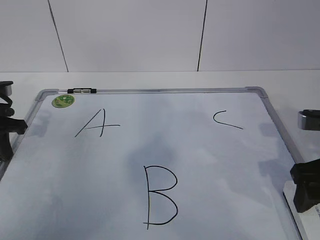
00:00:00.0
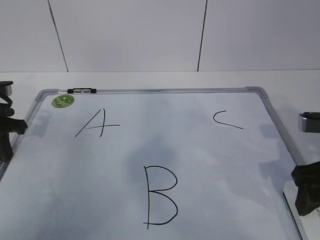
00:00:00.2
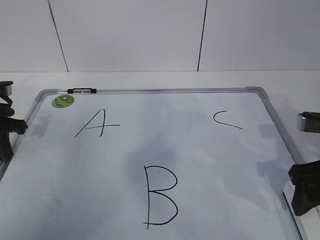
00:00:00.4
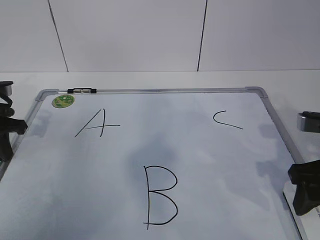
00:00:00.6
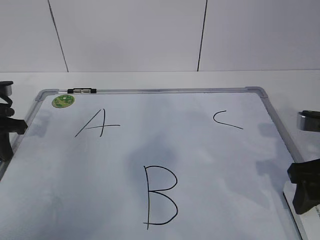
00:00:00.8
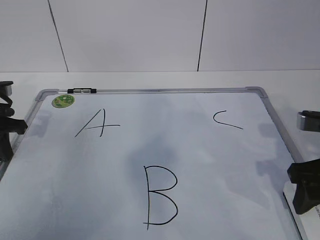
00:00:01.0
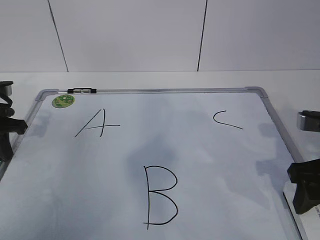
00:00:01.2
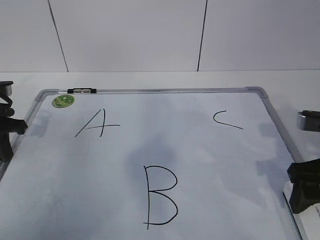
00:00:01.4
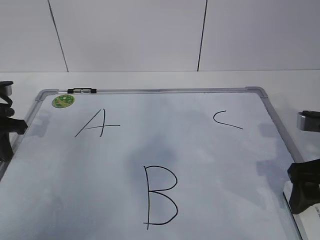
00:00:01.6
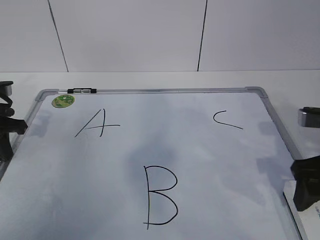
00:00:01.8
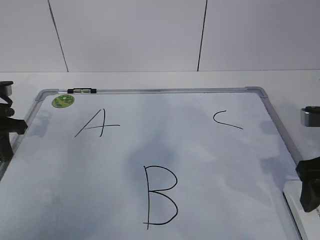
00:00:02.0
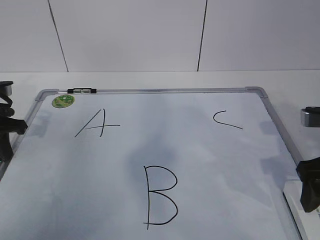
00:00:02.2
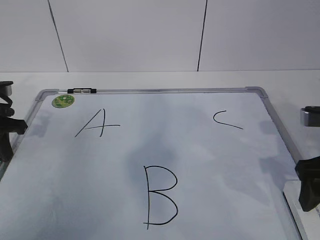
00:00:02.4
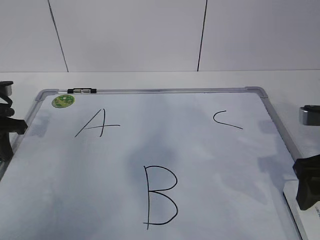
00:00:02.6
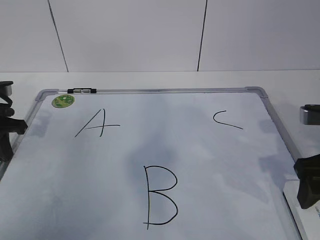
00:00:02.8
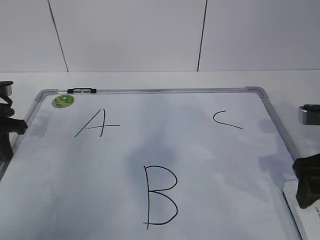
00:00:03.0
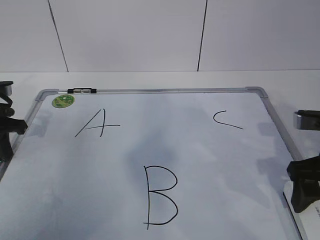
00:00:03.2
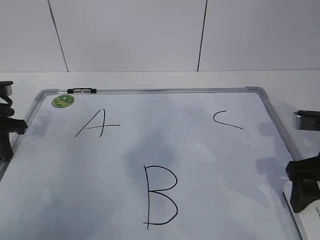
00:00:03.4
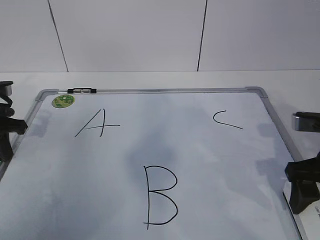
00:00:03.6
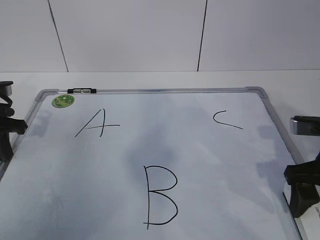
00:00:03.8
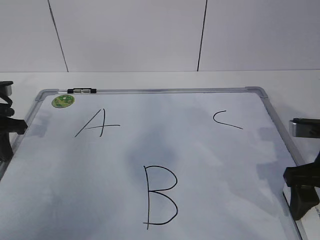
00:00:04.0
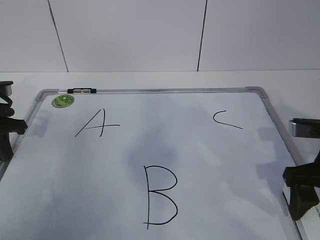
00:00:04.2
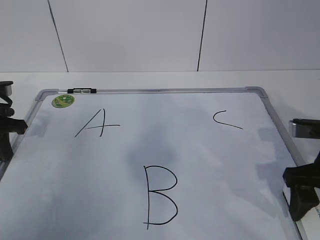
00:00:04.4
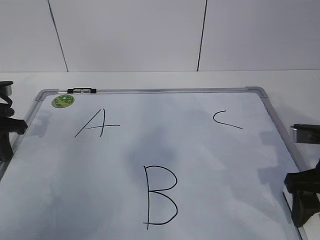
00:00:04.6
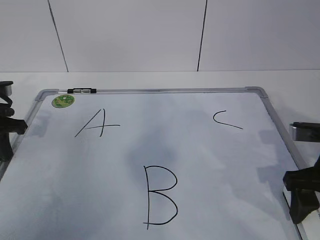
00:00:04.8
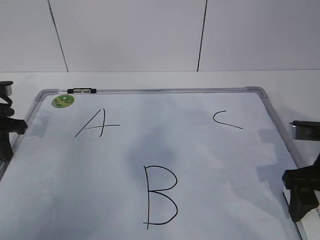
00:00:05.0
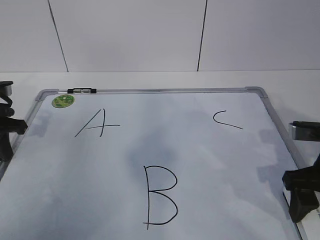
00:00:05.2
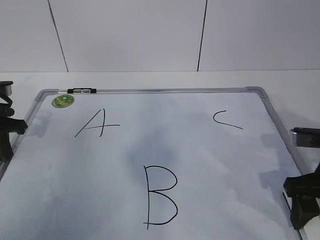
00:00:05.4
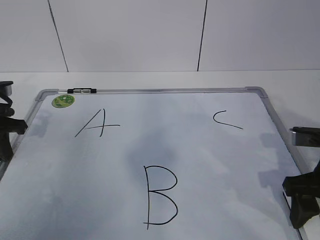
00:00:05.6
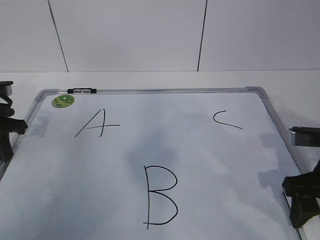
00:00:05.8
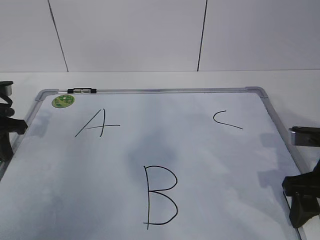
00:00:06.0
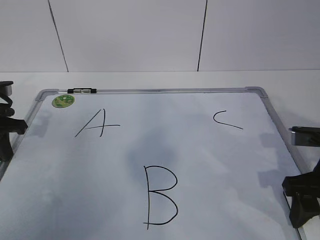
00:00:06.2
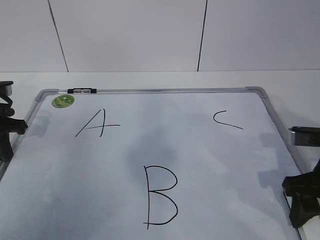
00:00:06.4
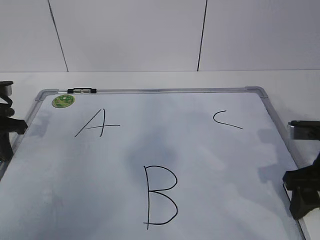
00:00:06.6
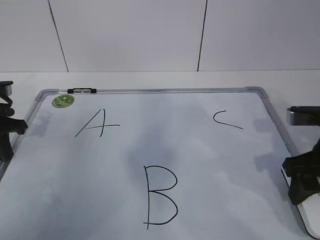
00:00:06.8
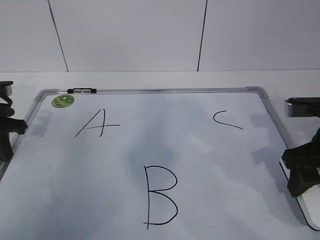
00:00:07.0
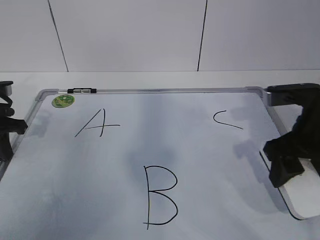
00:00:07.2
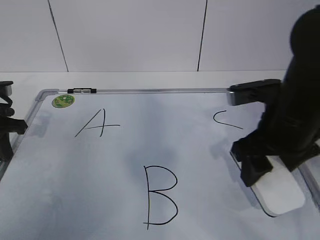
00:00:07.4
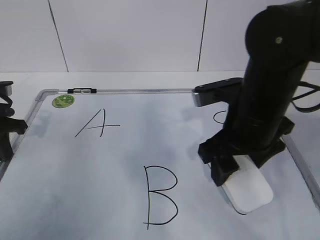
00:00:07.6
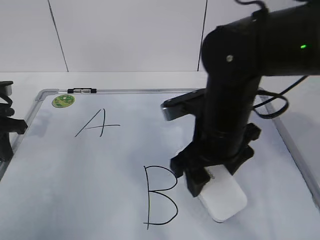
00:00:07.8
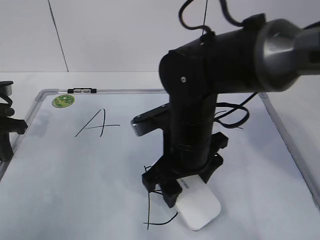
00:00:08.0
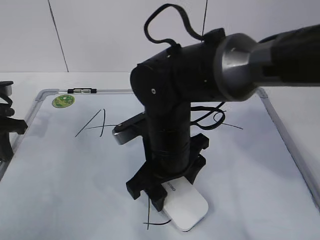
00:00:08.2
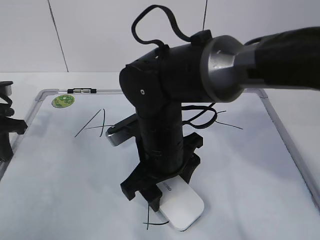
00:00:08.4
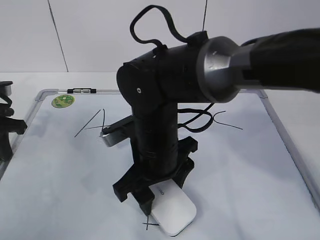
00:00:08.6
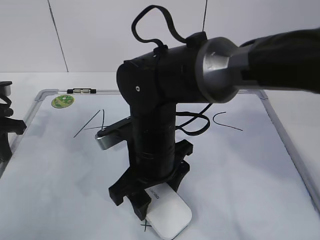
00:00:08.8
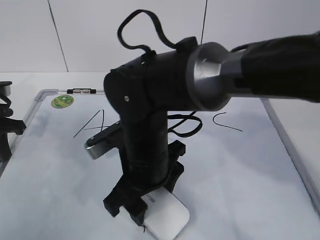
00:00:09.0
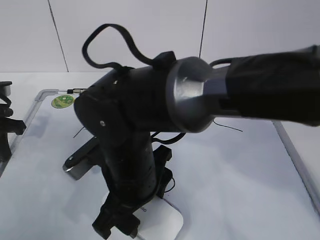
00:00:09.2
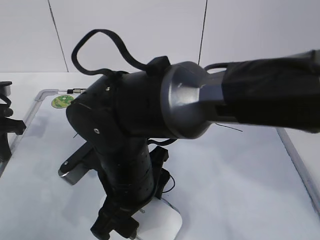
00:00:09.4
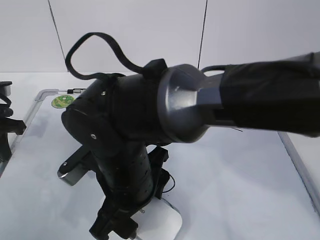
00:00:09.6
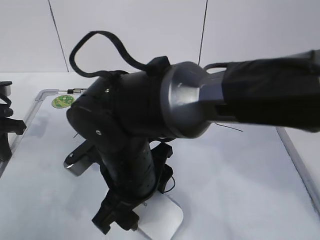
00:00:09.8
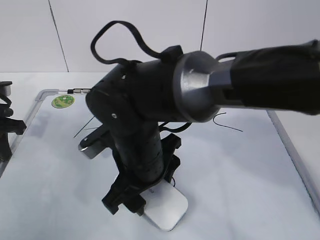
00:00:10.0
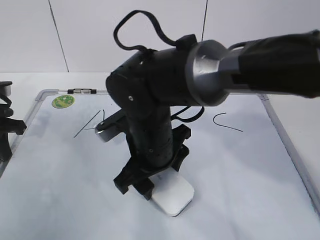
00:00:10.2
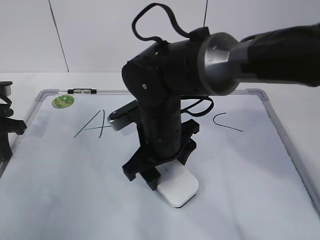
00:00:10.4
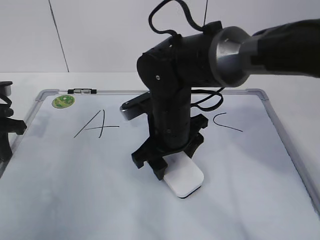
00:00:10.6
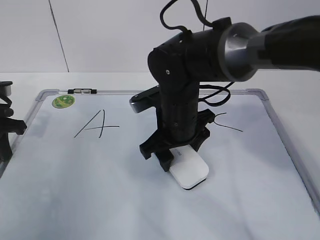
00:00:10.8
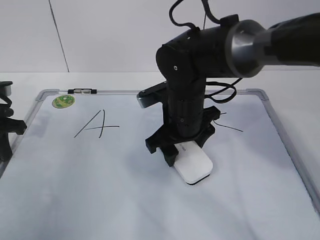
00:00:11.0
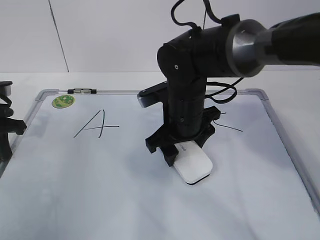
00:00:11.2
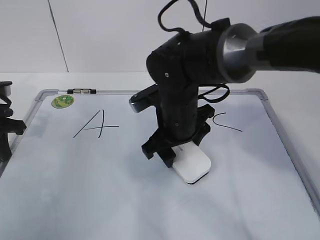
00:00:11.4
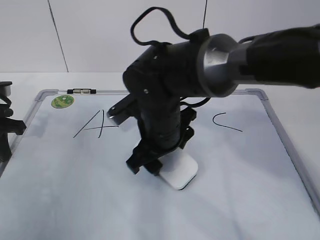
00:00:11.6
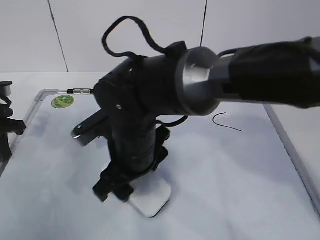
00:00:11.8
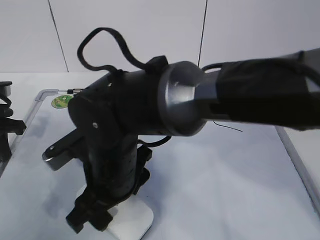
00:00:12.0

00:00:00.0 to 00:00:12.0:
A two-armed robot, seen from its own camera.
Task of the whole recording: pick up the eraser on the blackboard and erase the letter "B".
Step, 00:00:00.0 to 00:00:03.6: Grab the eraser with your right hand.
Step, 00:00:03.8 to 00:00:10.0: Erase the letter B with your right hand.
00:00:01.6 to 00:00:04.4: The grippers make only small movements.
00:00:04.4 to 00:00:06.0: The right gripper closes its fingers.
00:00:06.0 to 00:00:07.6: The right gripper is displaced to the left by some 15 cm.
00:00:07.6 to 00:00:09.0: The right gripper travels to the left and downward by approximately 15 cm.
00:00:09.0 to 00:00:10.4: The right gripper goes some 5 cm forward.
00:00:10.4 to 00:00:12.0: The right gripper moves to the left and backward, some 10 cm.

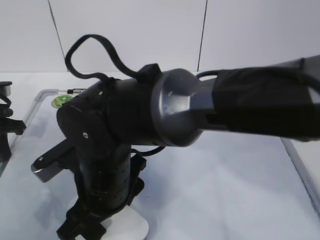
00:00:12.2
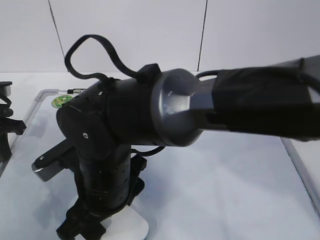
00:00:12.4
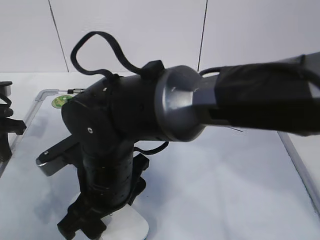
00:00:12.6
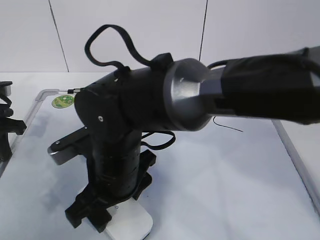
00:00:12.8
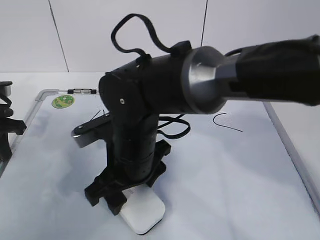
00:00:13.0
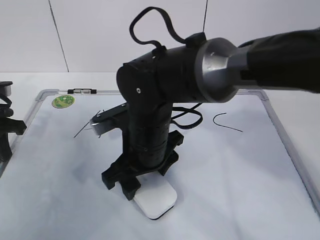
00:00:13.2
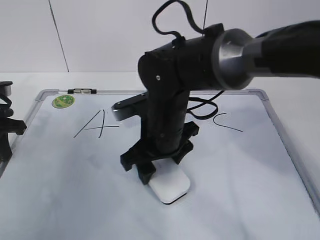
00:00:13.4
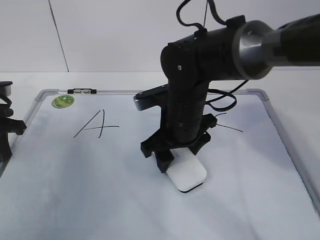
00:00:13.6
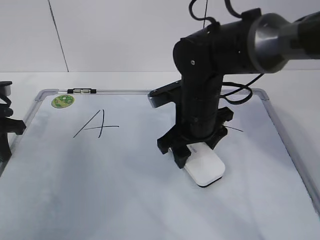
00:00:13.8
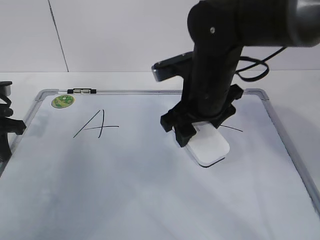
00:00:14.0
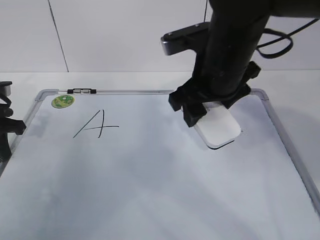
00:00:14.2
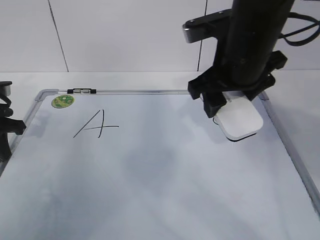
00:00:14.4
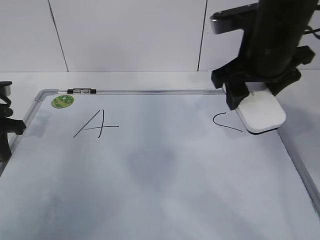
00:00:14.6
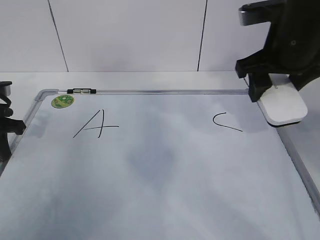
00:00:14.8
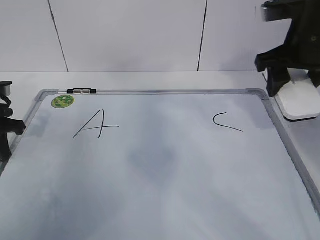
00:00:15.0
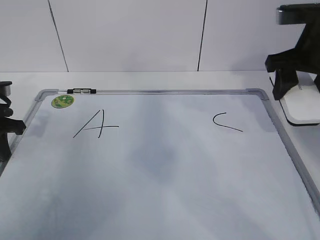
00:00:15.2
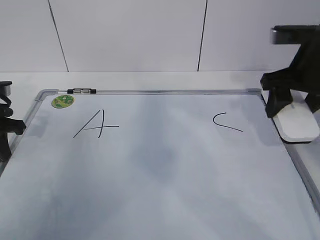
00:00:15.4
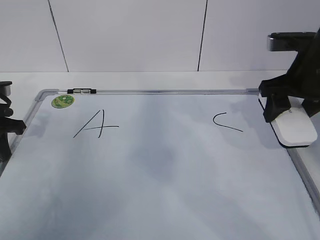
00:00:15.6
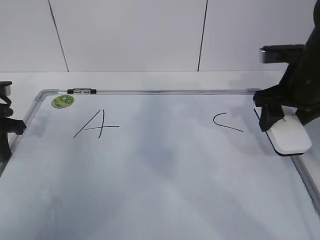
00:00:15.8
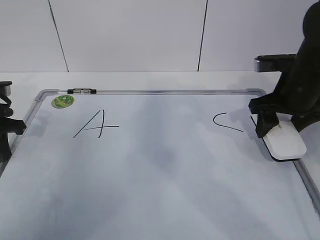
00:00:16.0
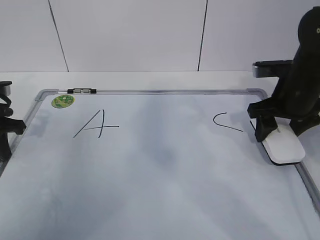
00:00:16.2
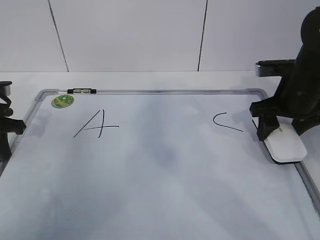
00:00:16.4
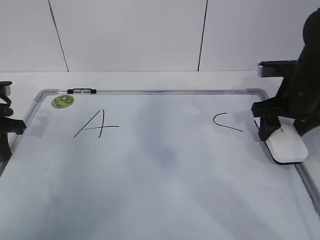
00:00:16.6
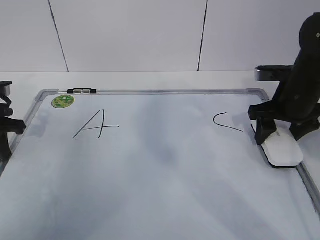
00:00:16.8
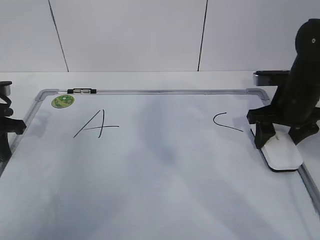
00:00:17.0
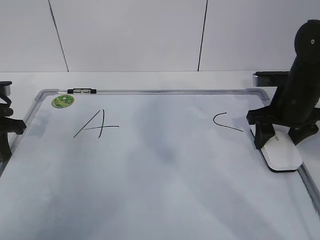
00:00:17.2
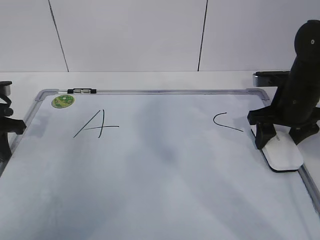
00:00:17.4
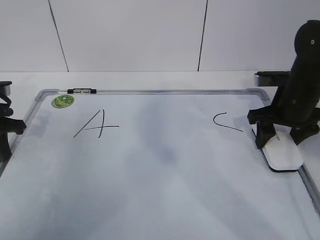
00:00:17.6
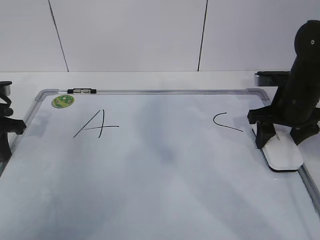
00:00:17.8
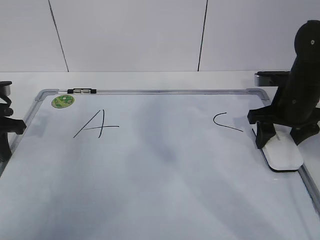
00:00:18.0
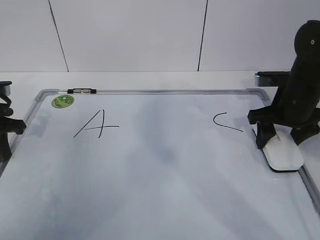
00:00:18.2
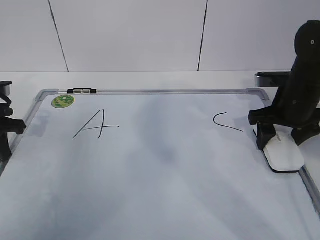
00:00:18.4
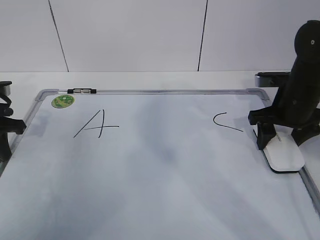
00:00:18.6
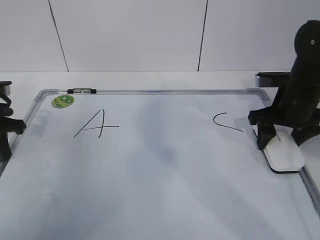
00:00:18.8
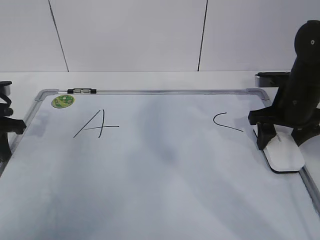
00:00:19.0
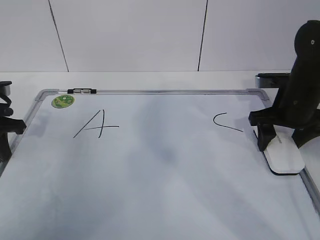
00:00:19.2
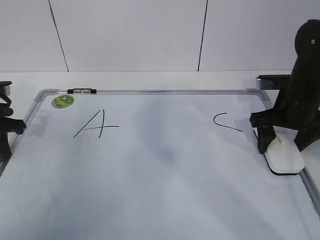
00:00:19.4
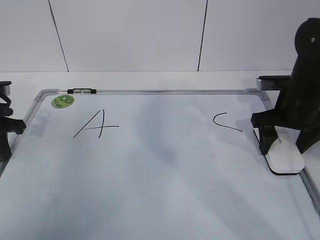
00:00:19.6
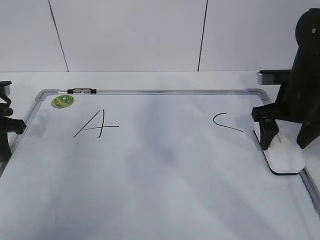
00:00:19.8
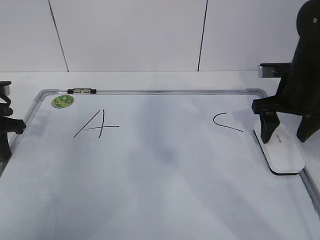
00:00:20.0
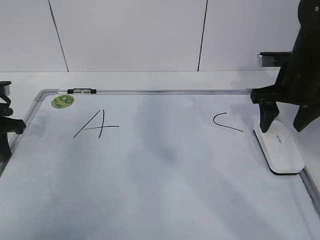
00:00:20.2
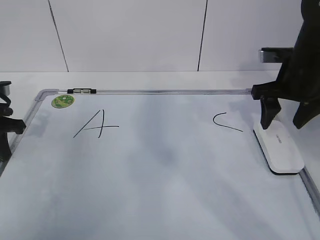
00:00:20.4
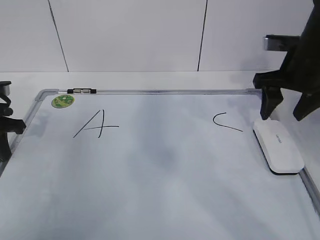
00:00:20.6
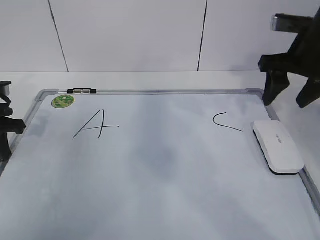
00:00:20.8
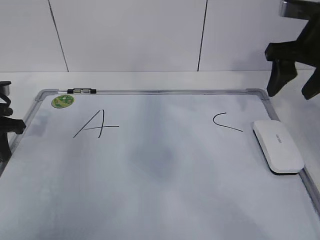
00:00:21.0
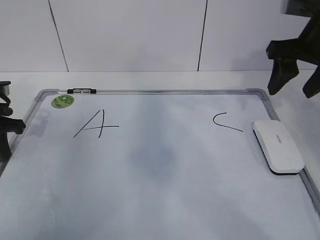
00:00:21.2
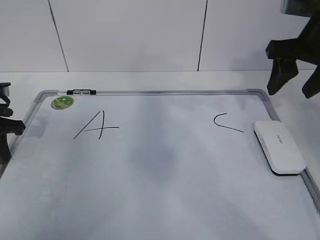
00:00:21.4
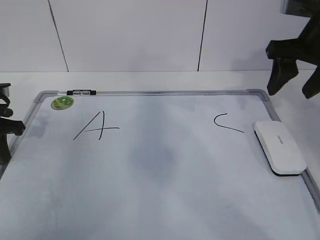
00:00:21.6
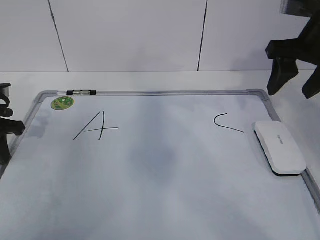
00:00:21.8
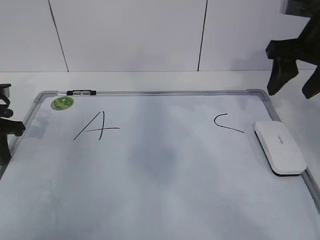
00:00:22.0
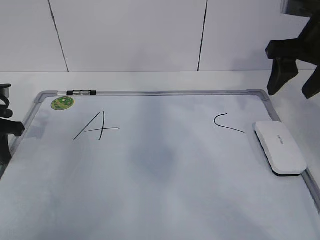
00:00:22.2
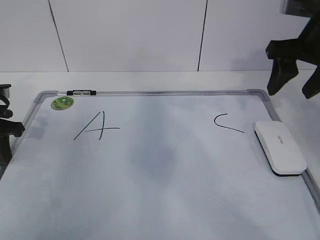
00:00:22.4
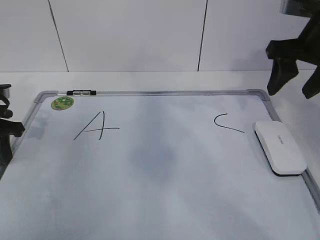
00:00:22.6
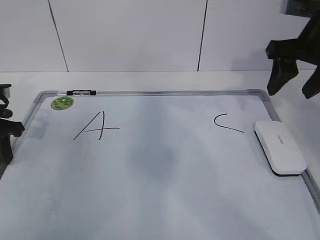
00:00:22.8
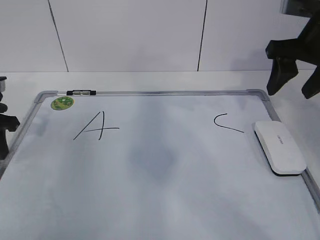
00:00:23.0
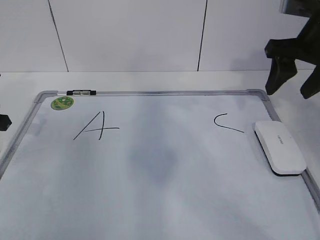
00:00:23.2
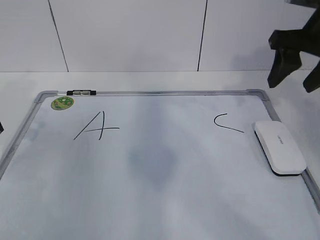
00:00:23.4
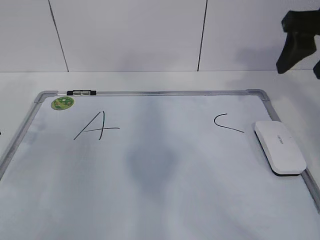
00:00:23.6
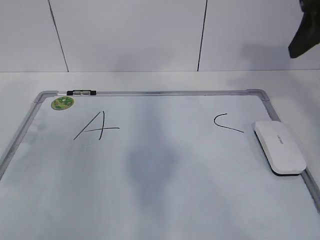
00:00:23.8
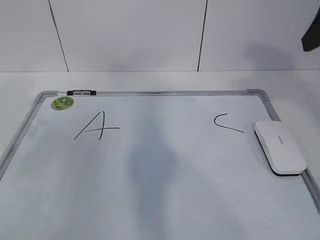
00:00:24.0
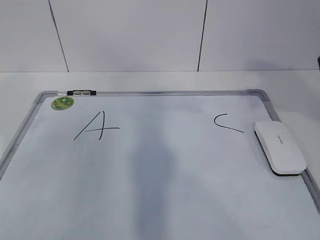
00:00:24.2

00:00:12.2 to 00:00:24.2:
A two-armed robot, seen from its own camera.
Task of the whole recording: pick up the eraser on the blackboard and erase the letter "B".
Step, 00:00:12.2 to 00:00:14.6: Put down the eraser with your right hand.
00:00:12.2 to 00:00:13.8: The right gripper is displaced to the right and forward by some 15 cm.
00:00:13.8 to 00:00:15.2: The right gripper shifts roughly 20 cm to the right and upward.
00:00:15.2 to 00:00:16.6: The right gripper goes approximately 10 cm downward.
00:00:16.6 to 00:00:18.2: There are only small adjustments of the grippers.
00:00:18.2 to 00:00:19.8: The right gripper opens up.
00:00:19.8 to 00:00:21.2: The right gripper heads upward, covering roughly 10 cm, and closes up.
00:00:21.2 to 00:00:22.6: The left gripper opens up.
00:00:22.6 to 00:00:24.2: The right gripper shifts roughly 15 cm backward and upward; the left gripper shifts roughly 10 cm upward and backward.
